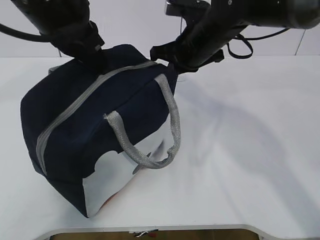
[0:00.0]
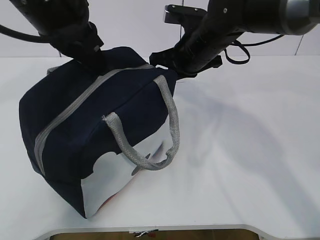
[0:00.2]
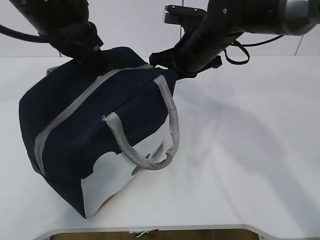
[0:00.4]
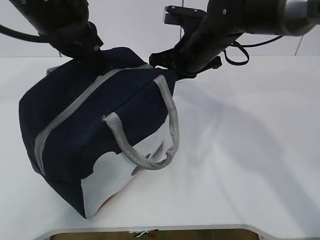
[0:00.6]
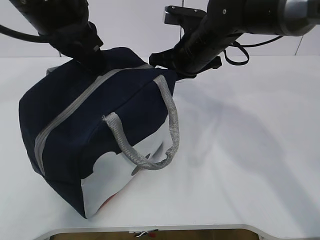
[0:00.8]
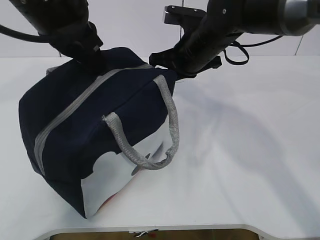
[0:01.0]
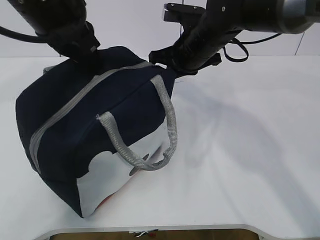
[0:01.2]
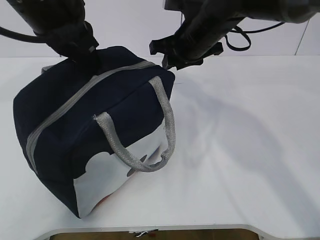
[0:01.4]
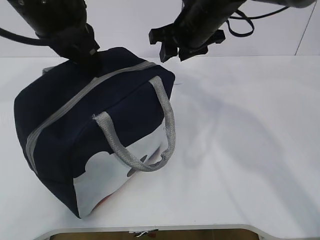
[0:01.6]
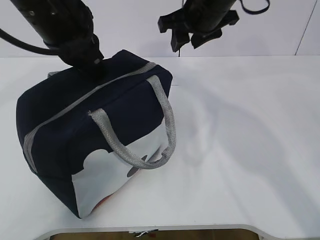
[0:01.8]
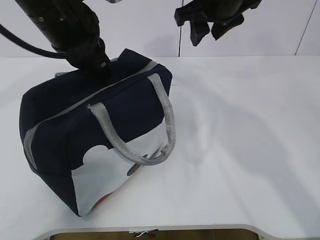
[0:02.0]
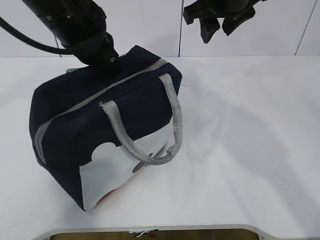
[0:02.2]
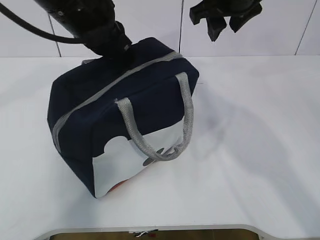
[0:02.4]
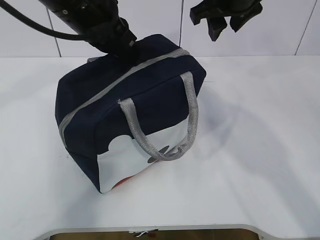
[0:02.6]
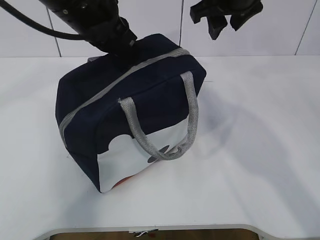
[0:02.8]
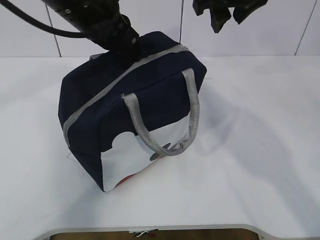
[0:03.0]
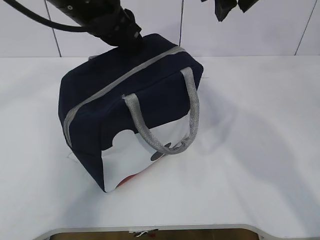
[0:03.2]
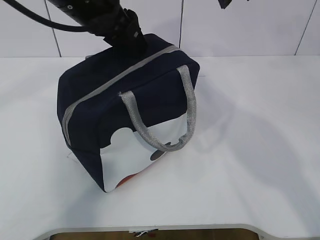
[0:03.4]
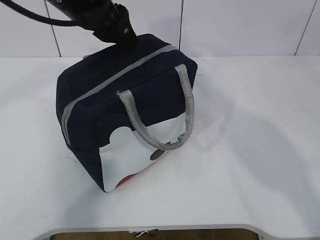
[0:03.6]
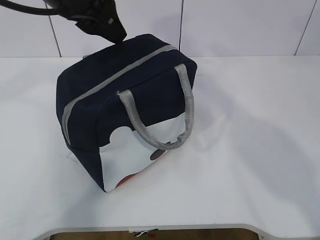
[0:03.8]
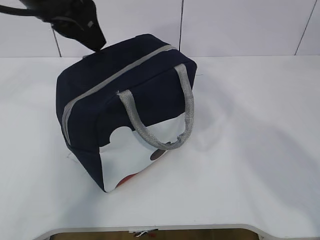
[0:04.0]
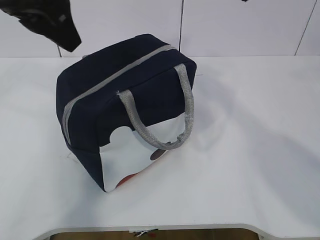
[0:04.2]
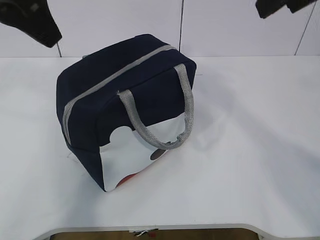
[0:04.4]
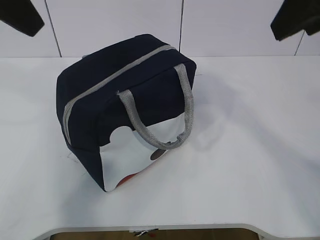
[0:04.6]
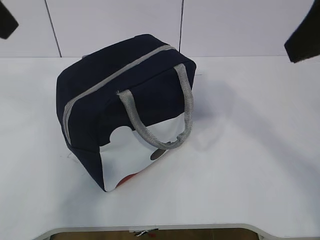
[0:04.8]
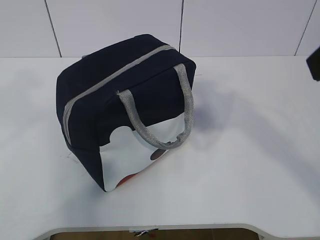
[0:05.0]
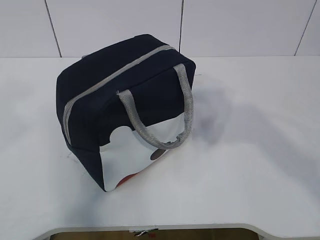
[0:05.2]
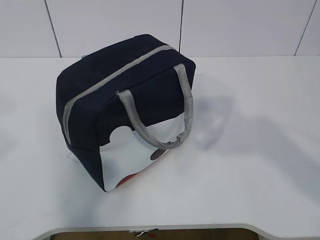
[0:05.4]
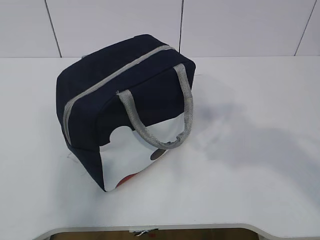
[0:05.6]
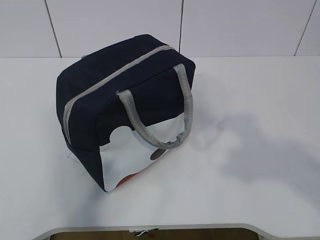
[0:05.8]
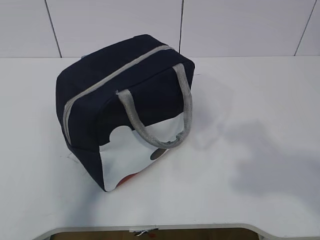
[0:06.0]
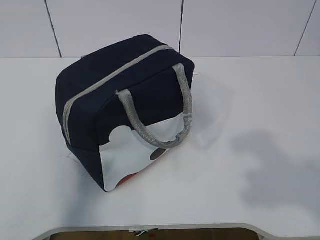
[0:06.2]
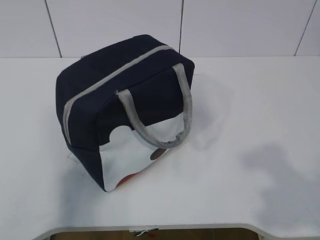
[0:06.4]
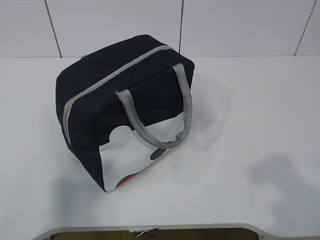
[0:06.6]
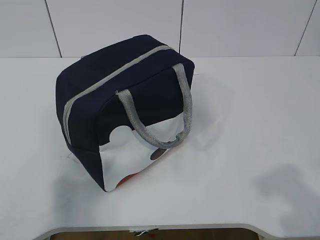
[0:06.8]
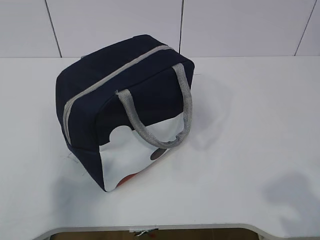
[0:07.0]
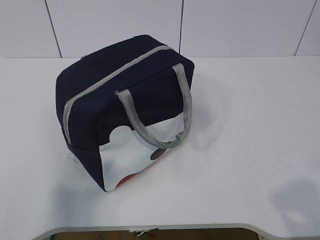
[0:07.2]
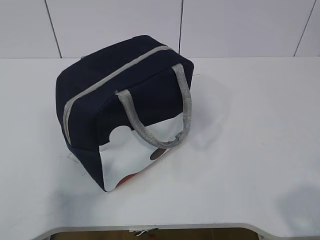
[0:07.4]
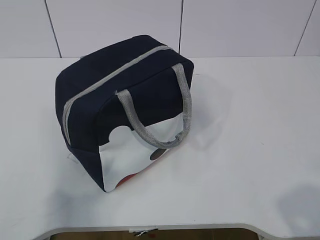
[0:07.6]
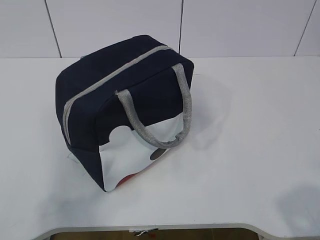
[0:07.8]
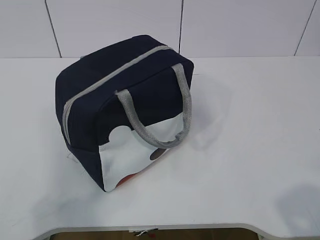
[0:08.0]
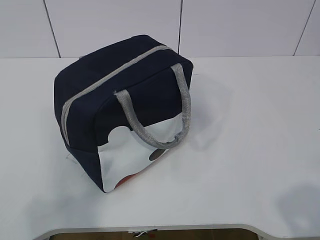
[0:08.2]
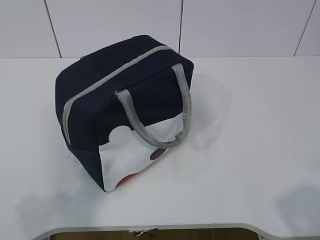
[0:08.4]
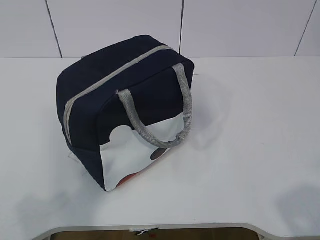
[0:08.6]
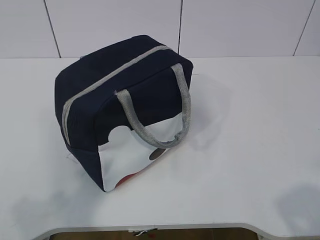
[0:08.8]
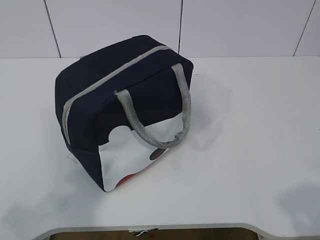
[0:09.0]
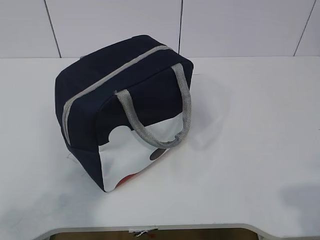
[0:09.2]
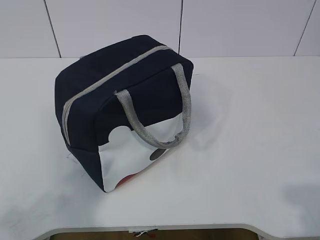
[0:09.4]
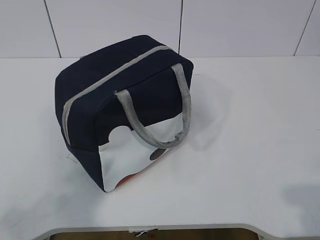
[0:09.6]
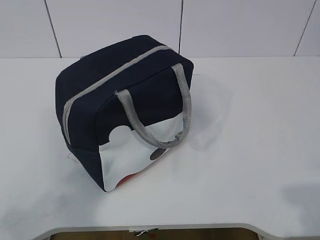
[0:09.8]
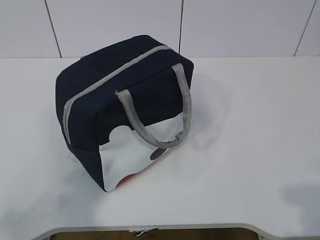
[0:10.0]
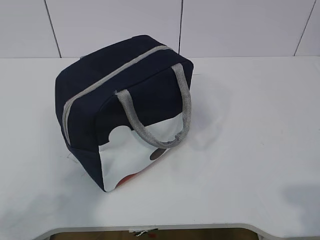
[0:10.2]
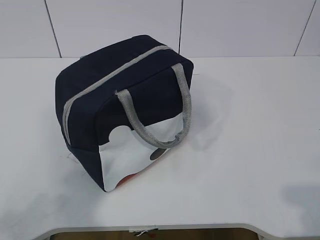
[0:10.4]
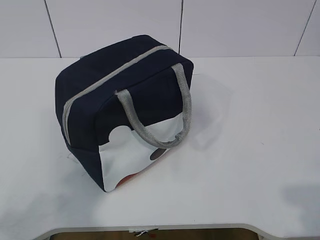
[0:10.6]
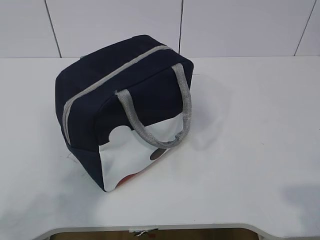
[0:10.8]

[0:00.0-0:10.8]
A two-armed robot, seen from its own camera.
Step, 0:00.0 to 0:04.2: zip up the zipper to close the bag.
0:00.0 to 0:01.6: The right gripper opens its fingers.
0:01.6 to 0:03.0: The right gripper heads upward, covering roughly 10 cm.
0:03.0 to 0:04.6: The left gripper is displaced backward, upward and to the left by some 15 cm, and opens its fingers, while the right gripper heads backward, covering about 15 cm.
0:04.6 to 0:06.2: The right gripper moves backward, approximately 20 cm, while the left gripper moves backward and to the left, roughly 25 cm.
0:06.2 to 0:07.8: The right gripper goes roughly 10 cm downward; the left gripper is displaced downward by about 5 cm.
0:09.2 to 0:10.8: Both grippers stay about where they are.
